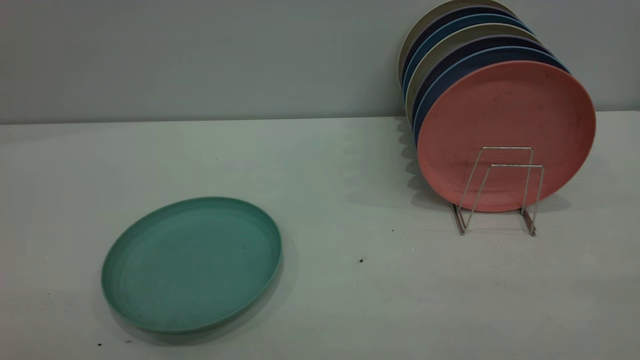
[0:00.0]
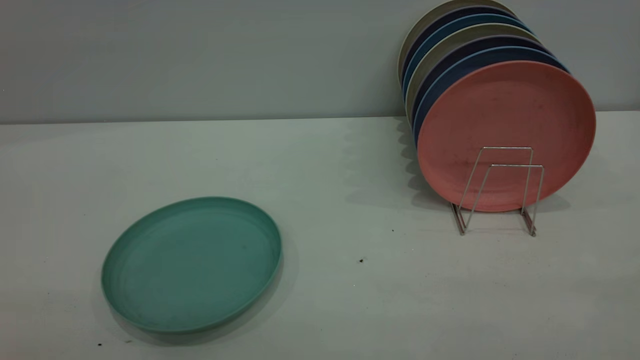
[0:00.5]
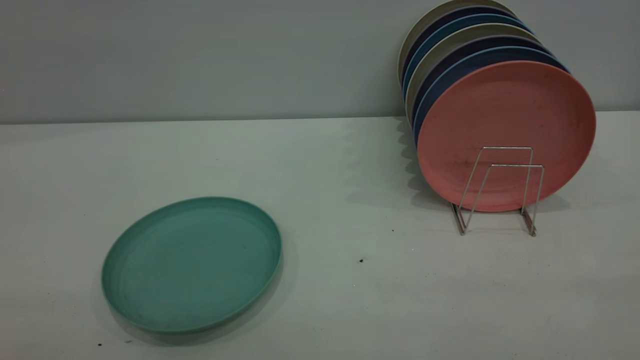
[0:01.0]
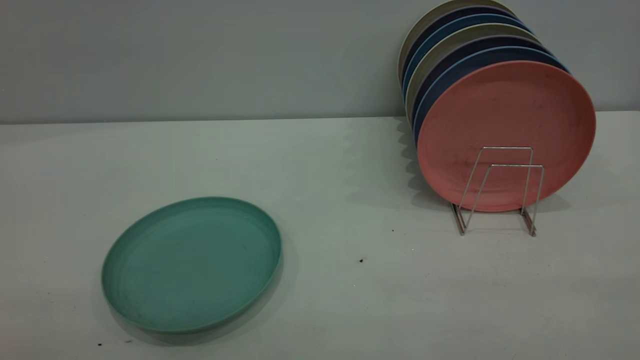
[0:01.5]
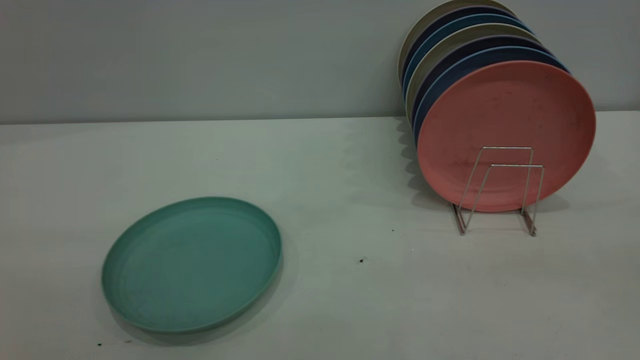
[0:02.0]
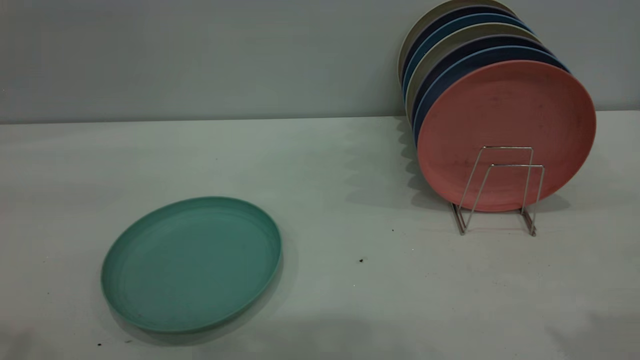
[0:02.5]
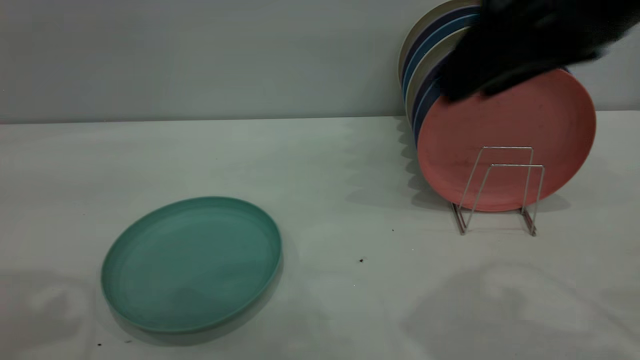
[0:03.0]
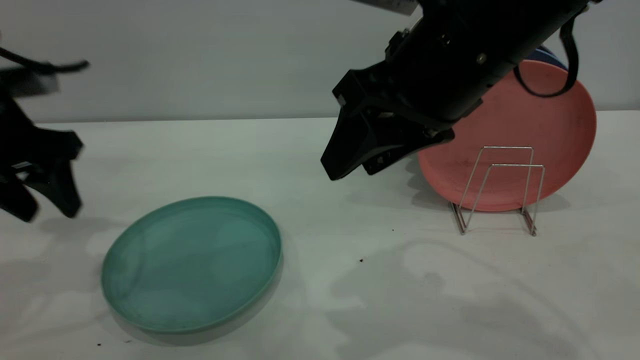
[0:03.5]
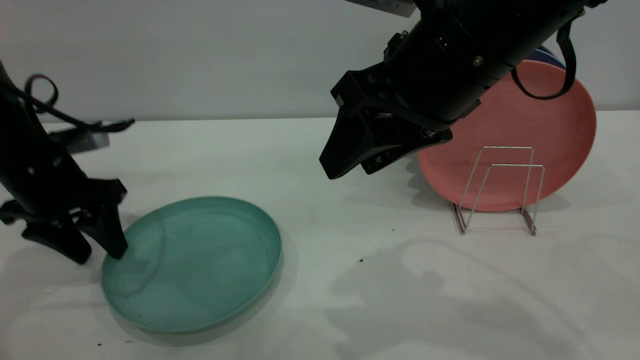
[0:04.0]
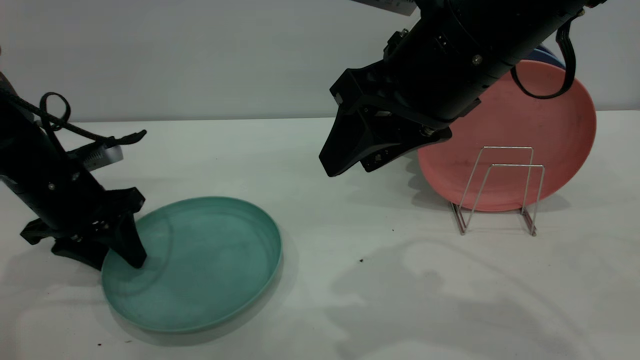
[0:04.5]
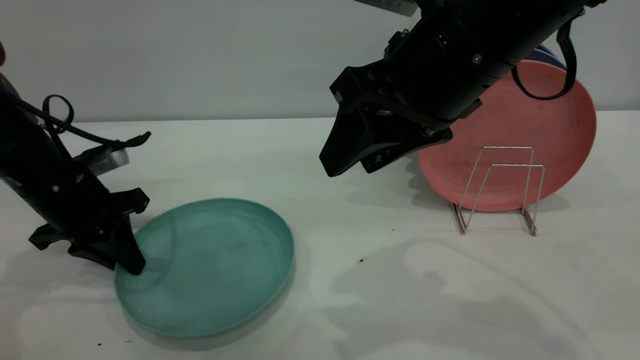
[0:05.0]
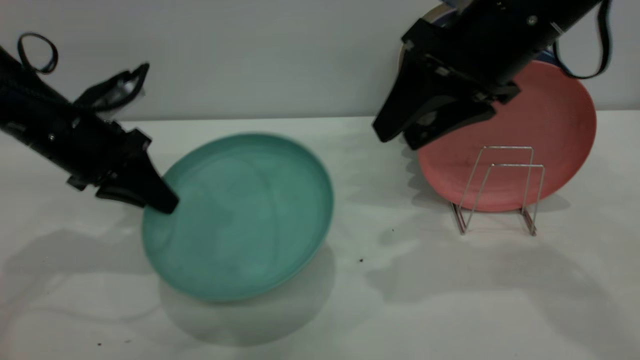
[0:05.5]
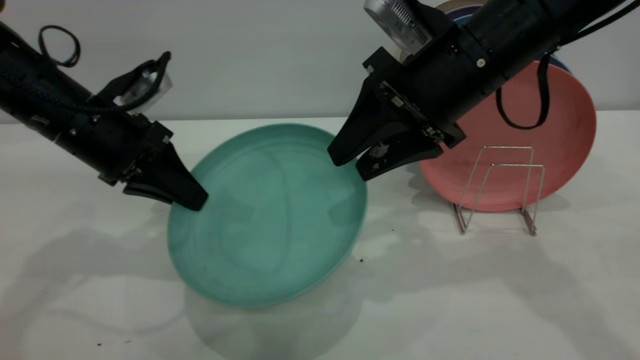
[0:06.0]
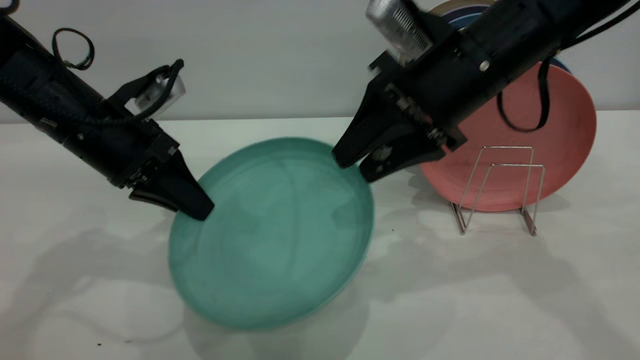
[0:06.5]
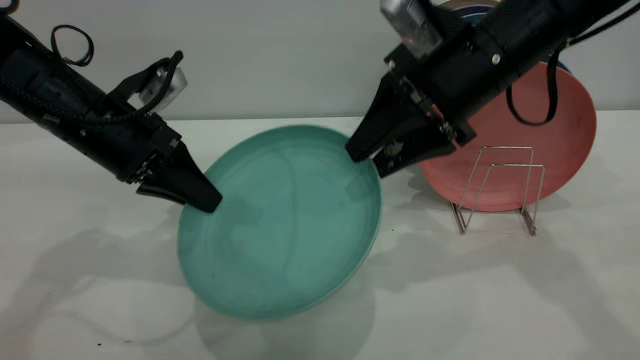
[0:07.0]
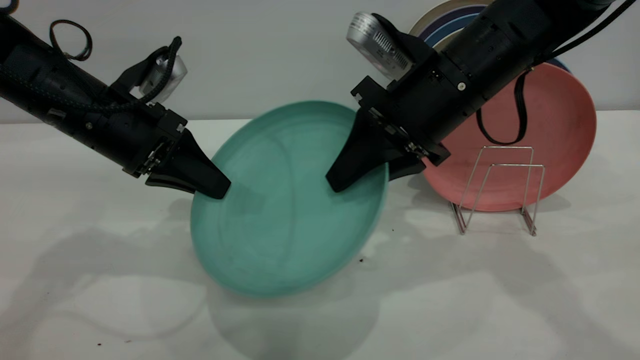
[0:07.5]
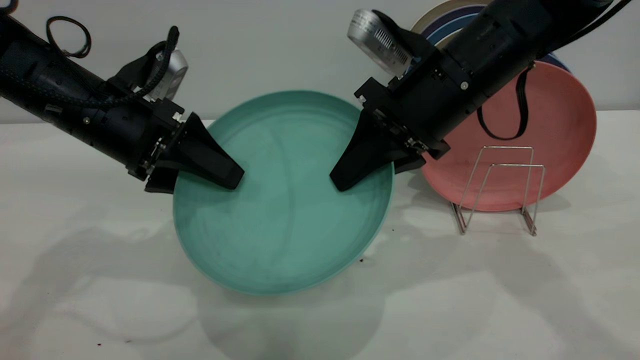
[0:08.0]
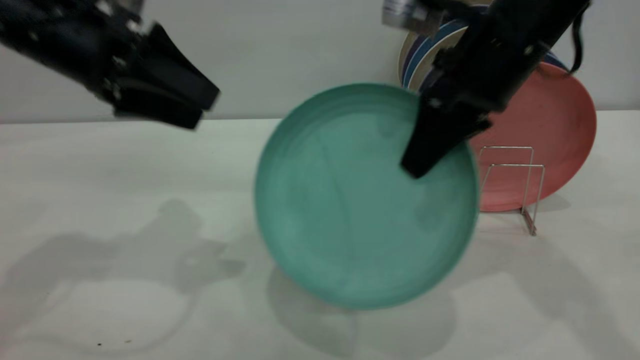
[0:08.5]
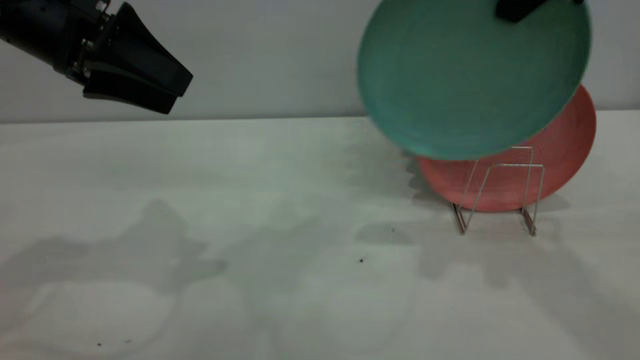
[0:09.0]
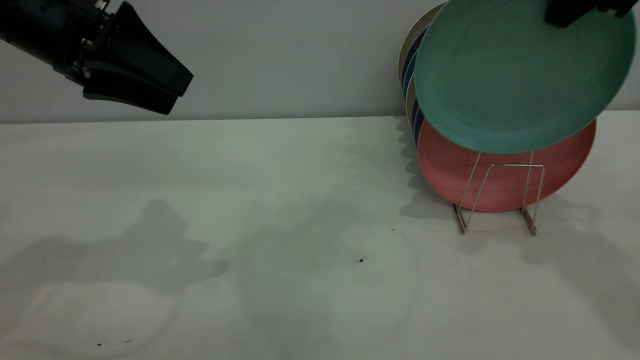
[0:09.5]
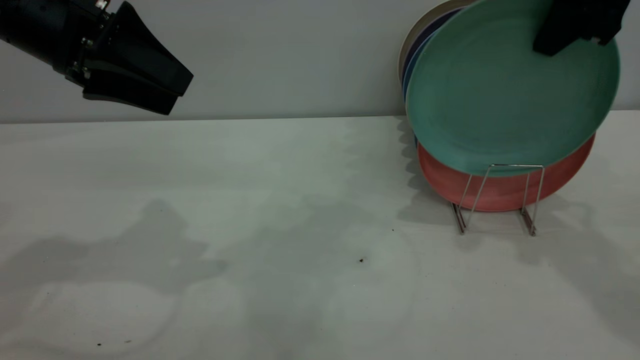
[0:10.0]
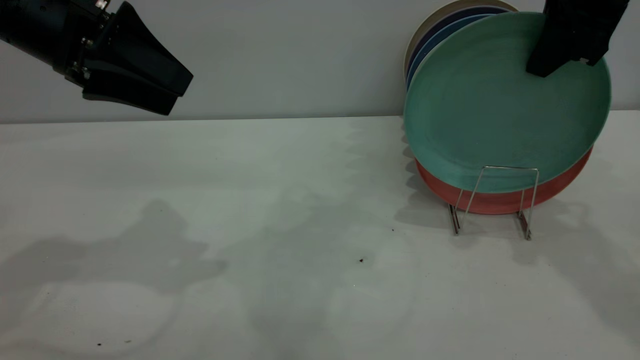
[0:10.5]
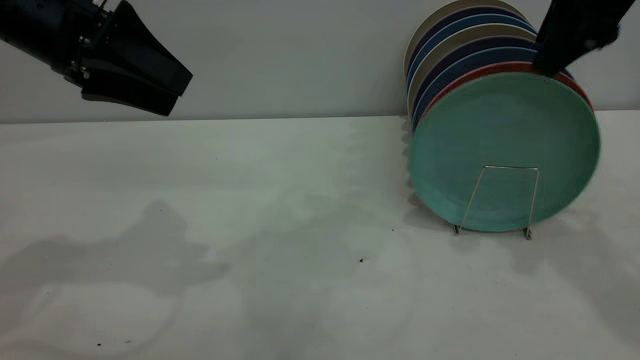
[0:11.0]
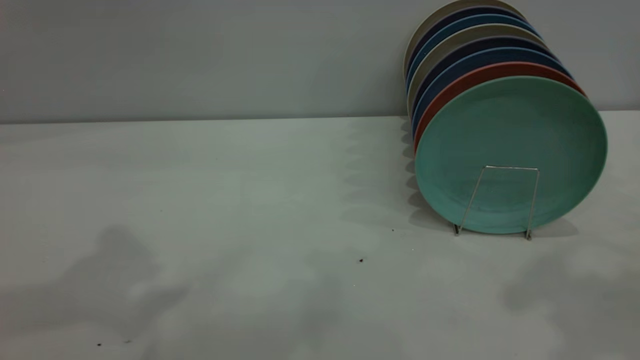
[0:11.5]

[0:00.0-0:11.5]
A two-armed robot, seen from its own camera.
Task of the whole recording: the left gripper grasp the green plate, the left gripper pass the green plate to the right gripper, and the right gripper place the green plate on the plate rack.
Step, 0:00.0 to 0:05.0: Pick up the plate with the left gripper.
Step, 0:05.5 to 0:08.5: Pass the plate from the left gripper to the right gripper.
Step, 0:09.0 to 0:11.0: Place the plate on the shelf.
0:02.0 to 0:04.0: The left gripper travels forward and downward by approximately 40 cm. The right gripper heads forward, to the left and downward, covering some 35 cm.
0:04.0 to 0:06.0: The left gripper is displaced to the right by some 5 cm, and closes its fingers, while the right gripper travels forward by some 5 cm.
0:06.0 to 0:07.5: The right gripper closes up.
0:07.5 to 0:09.5: The right gripper shifts roughly 20 cm upward and to the right. Meanwhile the left gripper moves upward, roughly 10 cm, and opens its fingers.
0:09.5 to 0:11.5: The left gripper shifts approximately 15 cm upward and backward. The right gripper is displaced backward and upward by approximately 20 cm, and opens its fingers.
